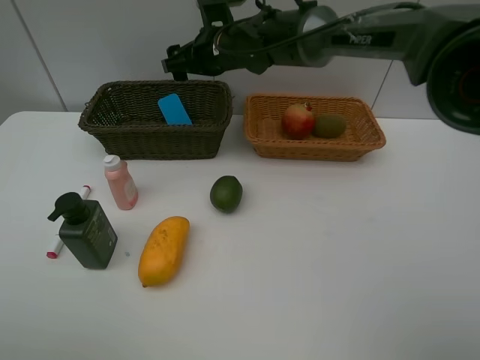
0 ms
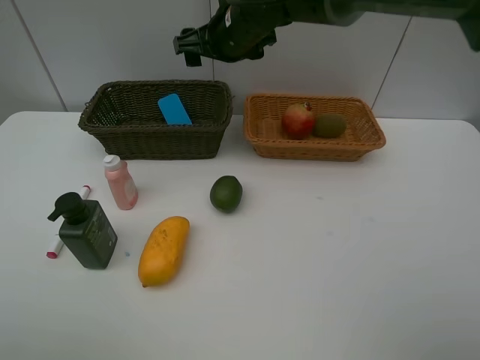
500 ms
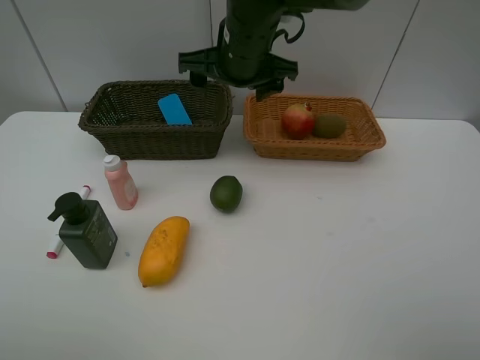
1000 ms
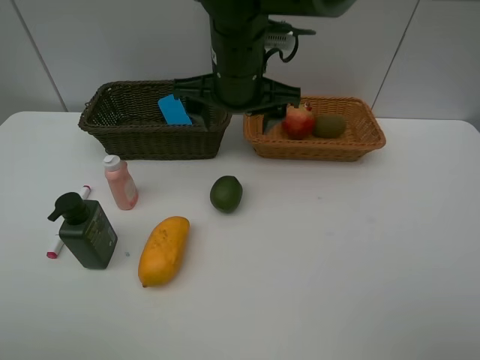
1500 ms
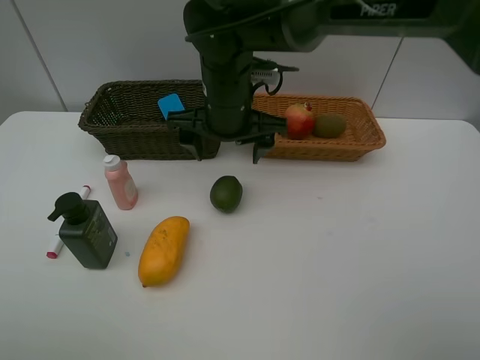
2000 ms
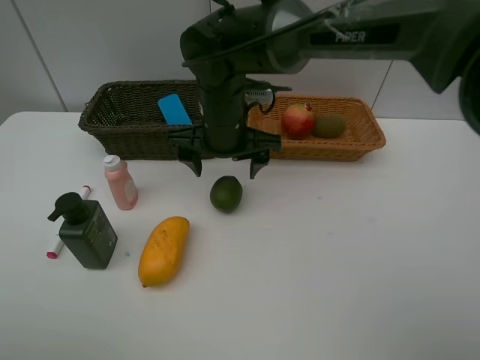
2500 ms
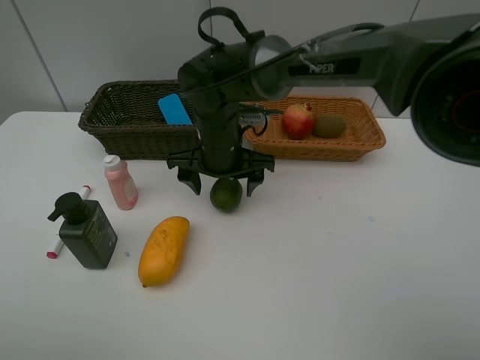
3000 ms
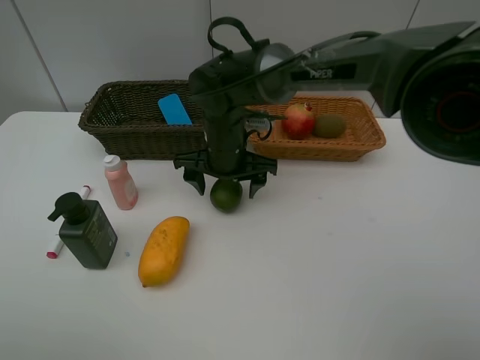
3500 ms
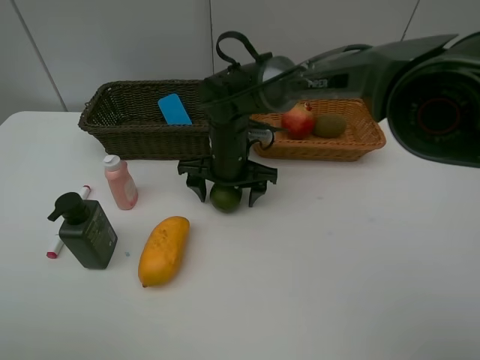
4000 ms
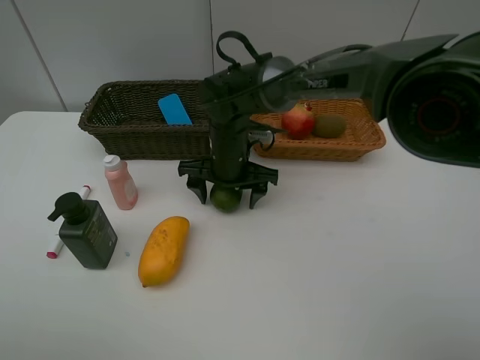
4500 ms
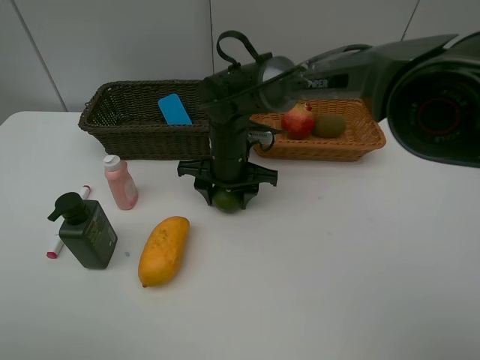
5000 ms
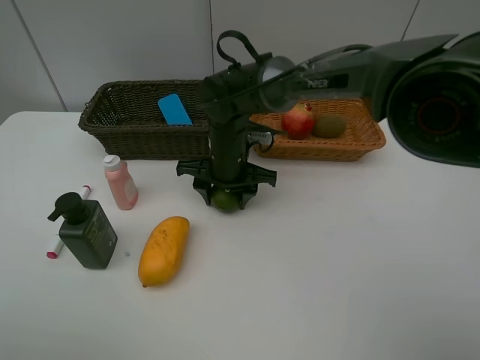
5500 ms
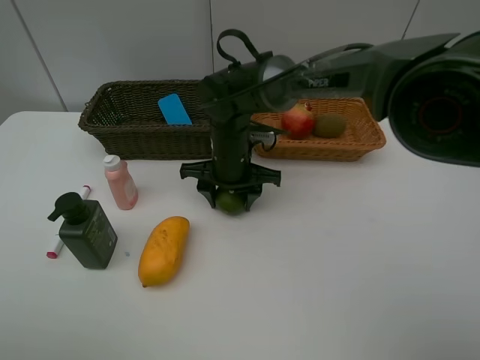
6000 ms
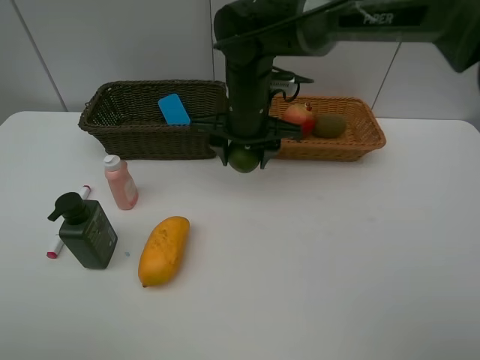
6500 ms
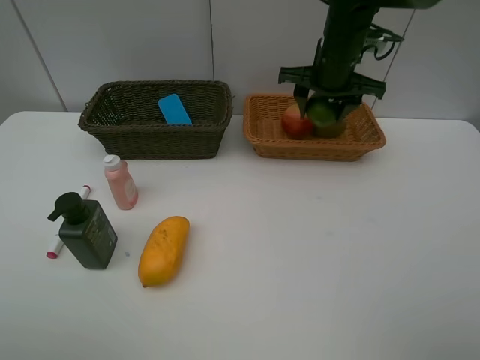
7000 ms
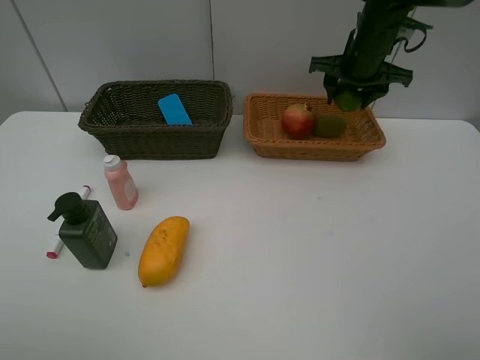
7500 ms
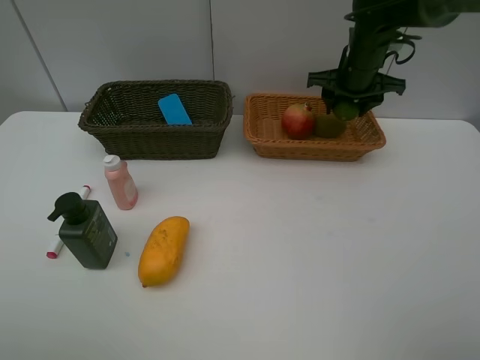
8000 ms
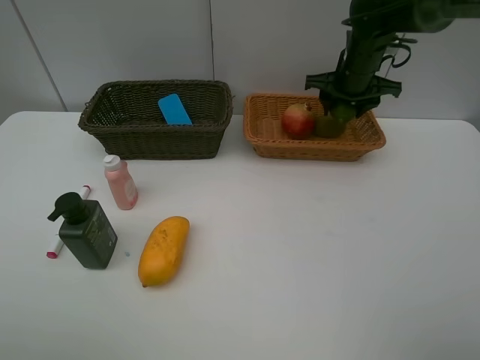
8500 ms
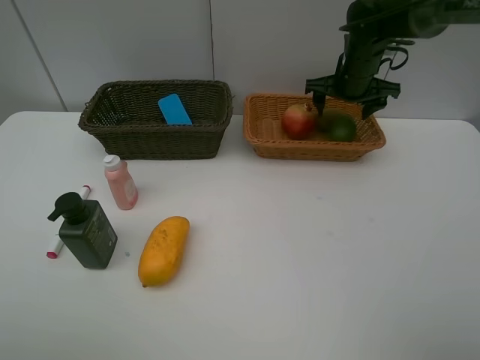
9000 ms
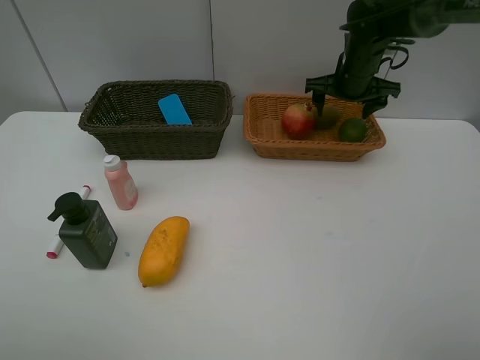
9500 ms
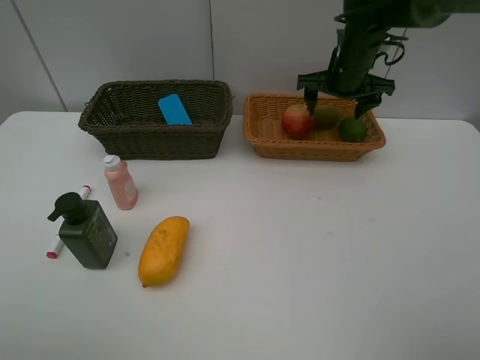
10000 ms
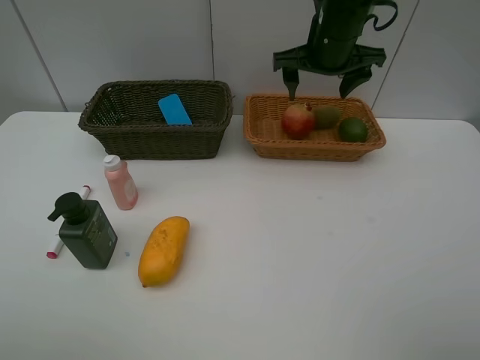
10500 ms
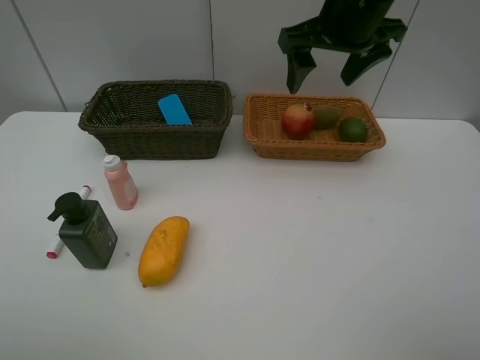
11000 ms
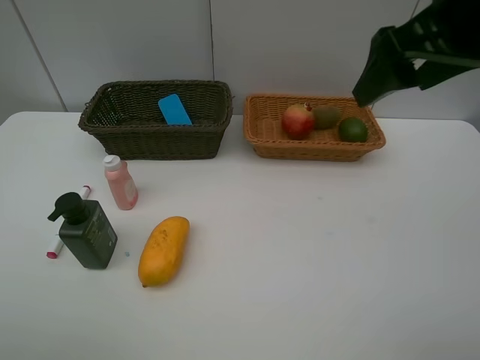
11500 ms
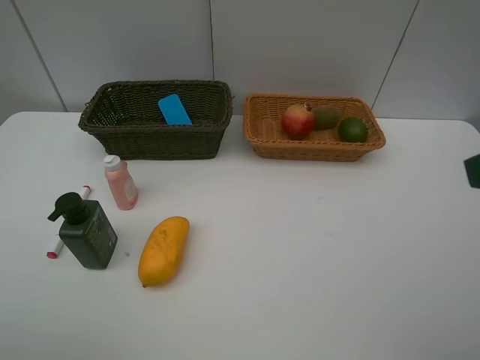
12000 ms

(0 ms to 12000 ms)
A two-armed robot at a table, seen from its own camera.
Task of the whole recording: Place multiple objects separately in different baskets.
Step, 0 ms - 6000 ms: Pick up the lime with right gripper.
Step, 6500 ms - 10000 ms: Place the lime in the light basket with right gripper.
0 ms - 2000 ms: The right gripper travels backward by some 10 cm.
2000 ms - 4000 ms: The right gripper is displaced downward by some 10 cm.
4000 ms - 6000 ms: The right gripper closes.
6000 ms - 8000 ms: The right gripper moves to the right, forward and upward, approximately 25 cm.
8000 ms - 10000 ms: The right gripper opens.
10000 ms - 12000 ms: The right gripper goes approximately 40 cm backward.

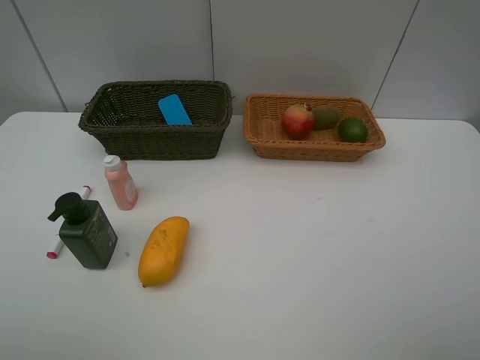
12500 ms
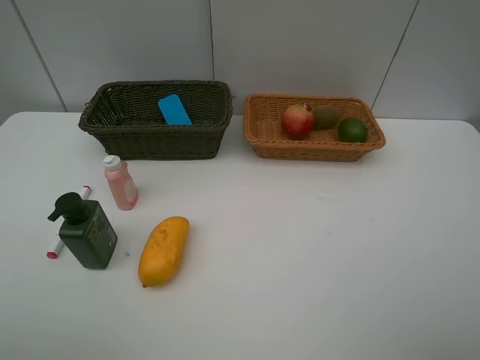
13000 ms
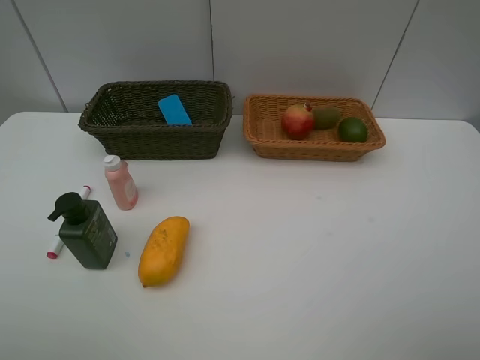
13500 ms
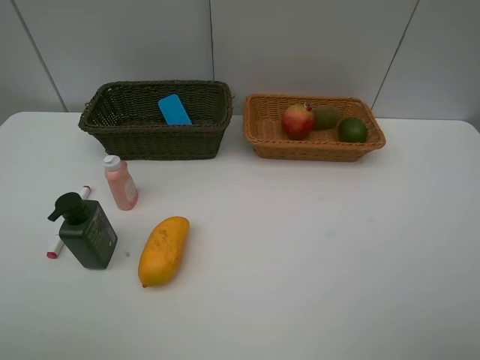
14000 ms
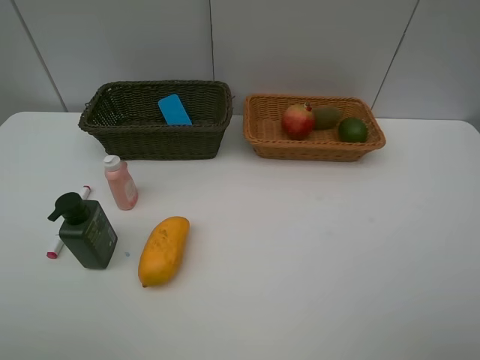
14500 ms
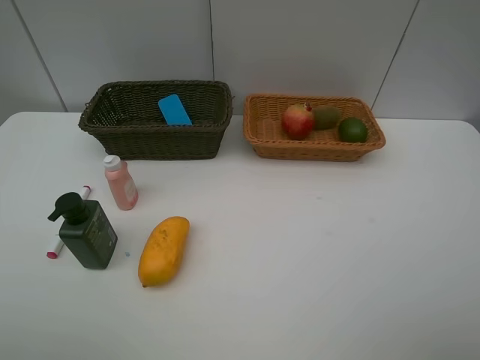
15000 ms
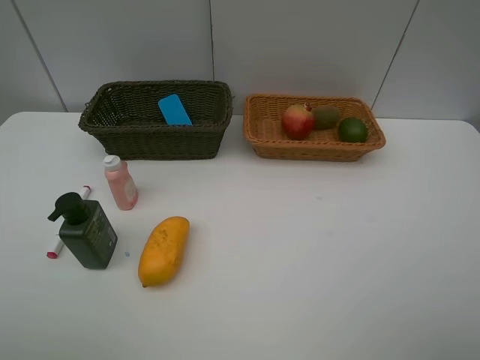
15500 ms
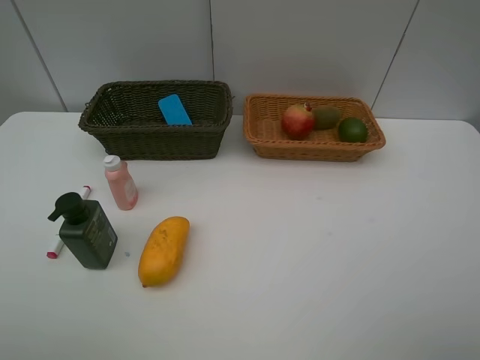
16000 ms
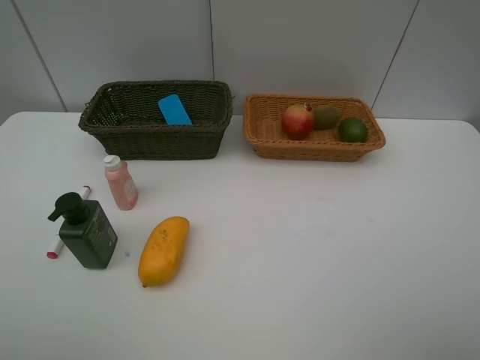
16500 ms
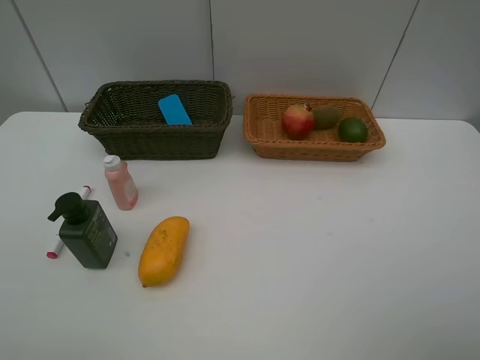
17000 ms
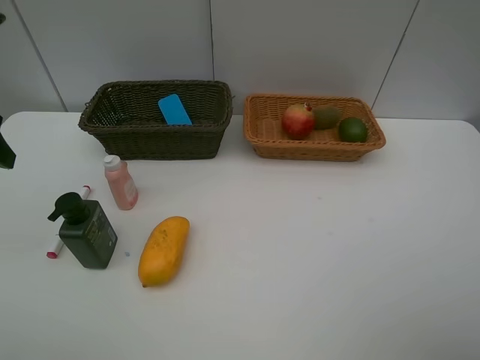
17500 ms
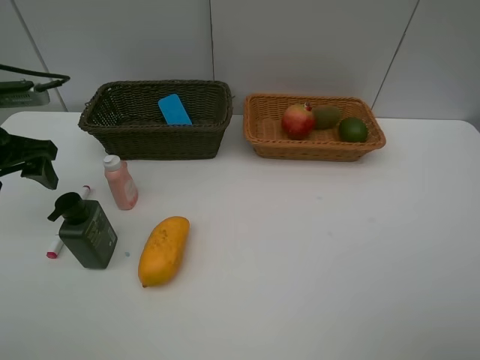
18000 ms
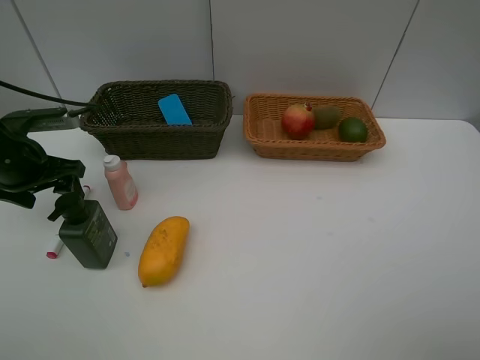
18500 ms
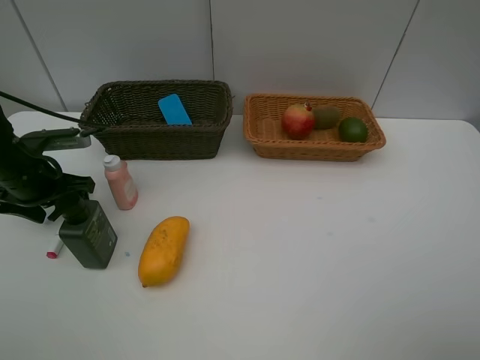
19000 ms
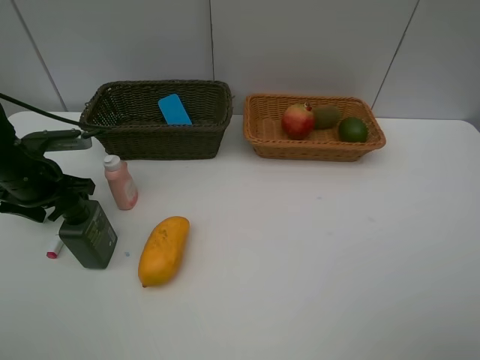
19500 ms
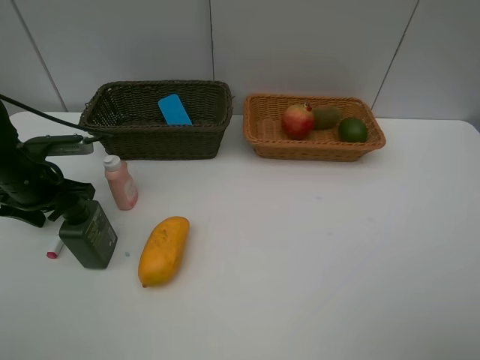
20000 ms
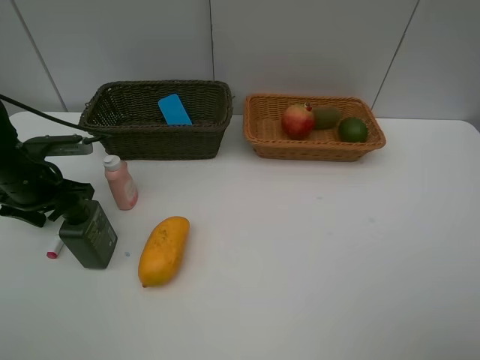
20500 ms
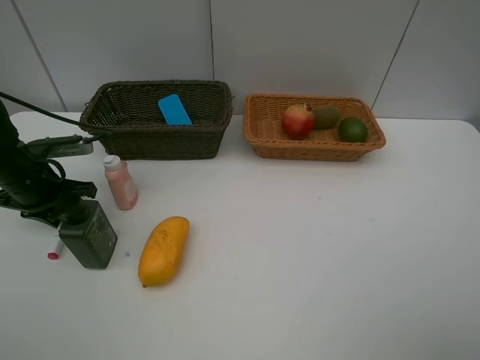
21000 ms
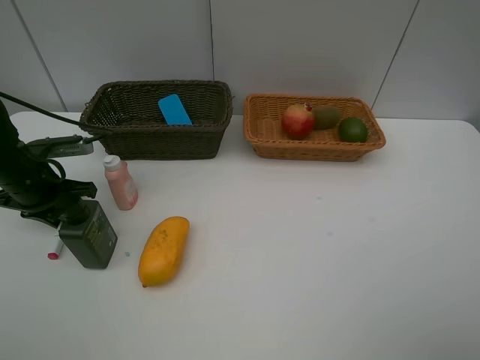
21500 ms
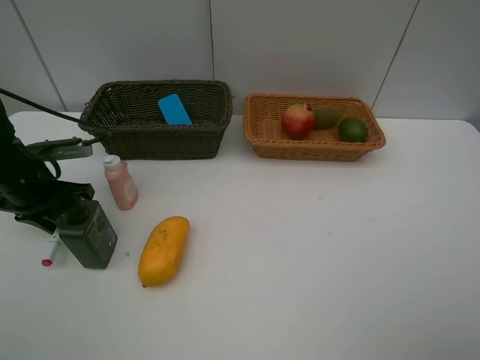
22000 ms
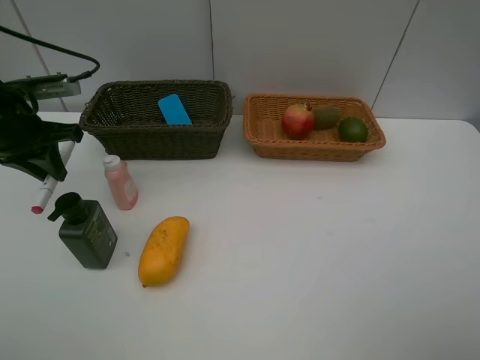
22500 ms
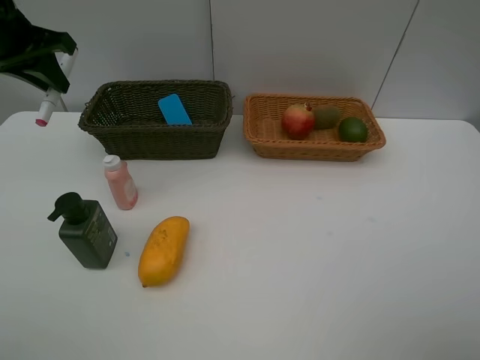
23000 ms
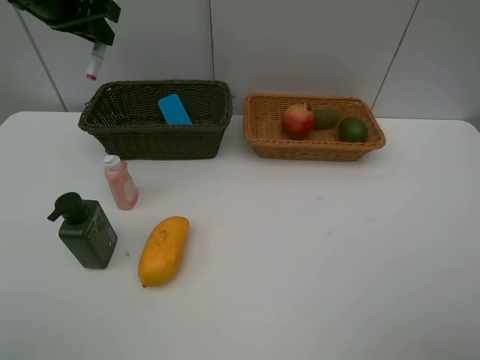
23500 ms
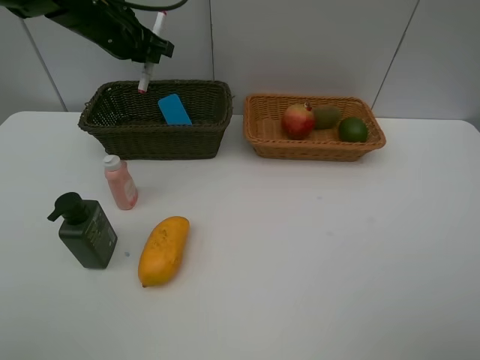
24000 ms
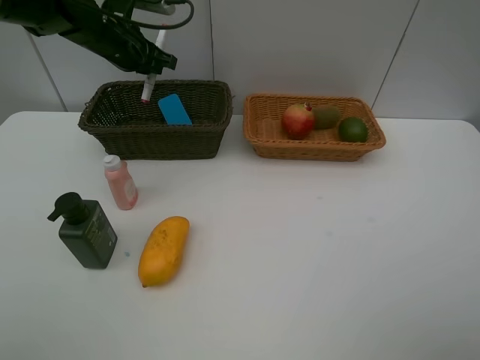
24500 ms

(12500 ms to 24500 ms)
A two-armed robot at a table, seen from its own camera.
Task of the whole recording: Place multiple objects separately in different baskets.
Step, 12500 ms - 22000 ms: Pick up the red marker with left gripper.
16500 ms - 18500 ms: The left gripper goes roughly 35 cm forward and downward.
18500 ms - 20500 ms: The grippers move only a little.
20500 ms - 22500 ms: The left gripper travels upward by about 10 cm, and closes its fingers.
22500 ms - 24500 ms: The left gripper travels forward and to the right by about 15 cm.

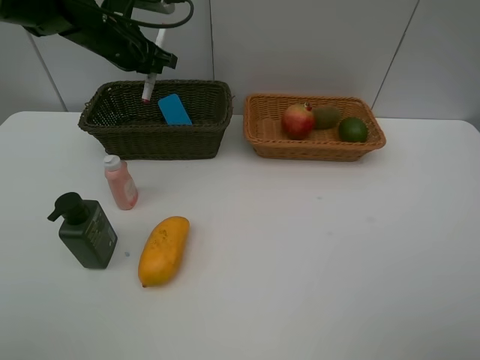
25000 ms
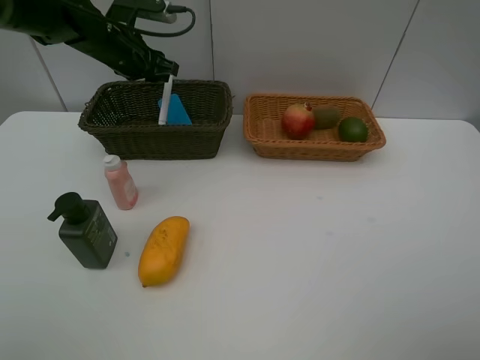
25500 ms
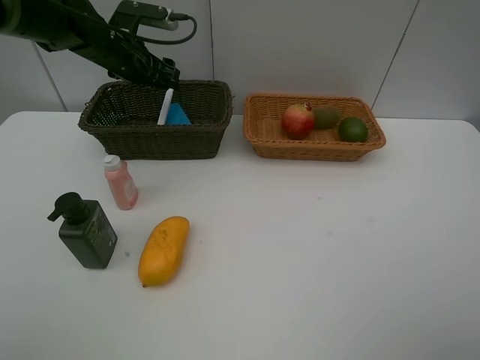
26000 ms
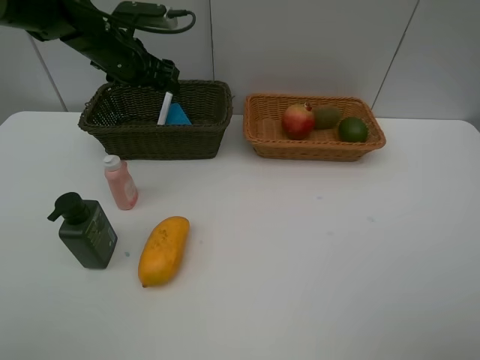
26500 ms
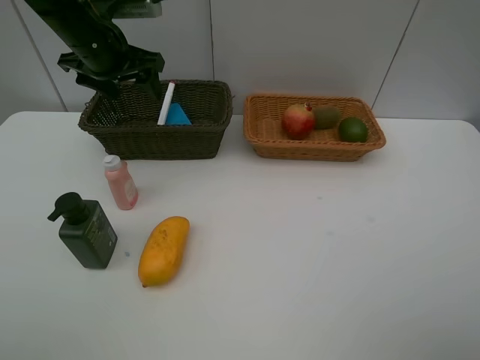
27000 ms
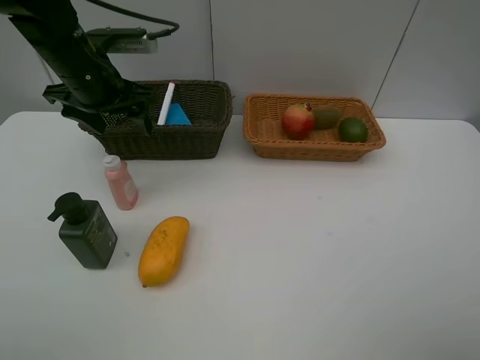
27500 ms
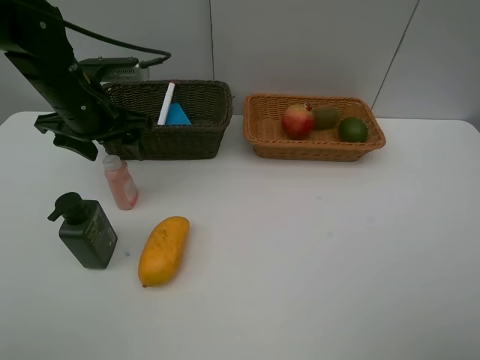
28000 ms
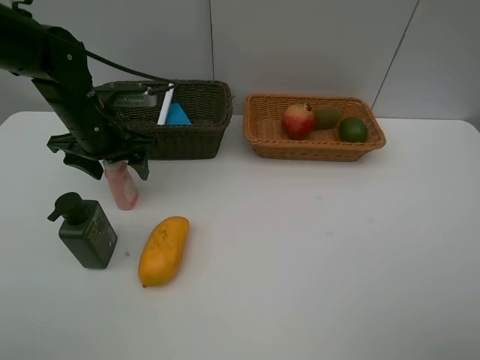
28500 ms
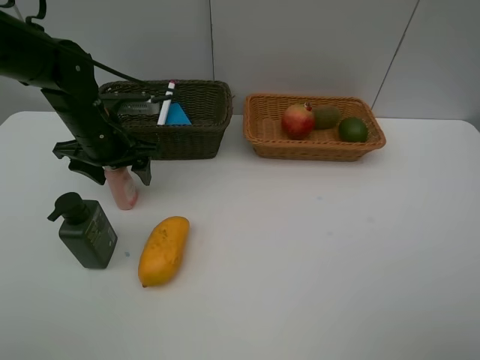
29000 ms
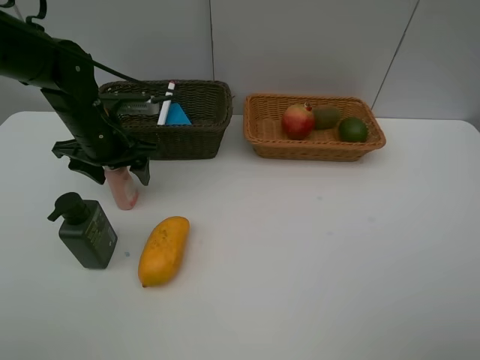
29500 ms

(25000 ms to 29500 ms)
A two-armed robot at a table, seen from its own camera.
Task of the whole recording: Place multiple objects separately in different baskets.
25000 ms - 27000 ms: The left gripper shifts roughly 5 cm backward, and opens up.
27000 ms - 29500 ms: The left gripper shifts approximately 10 cm downward and backward.
